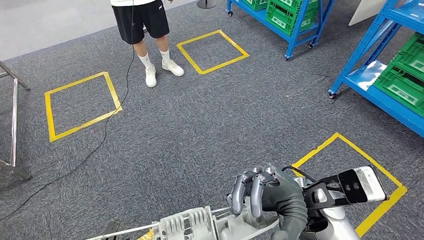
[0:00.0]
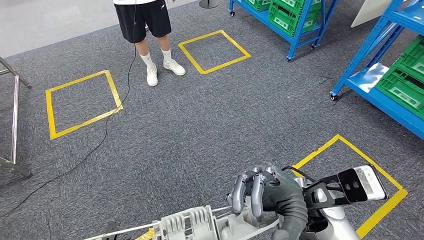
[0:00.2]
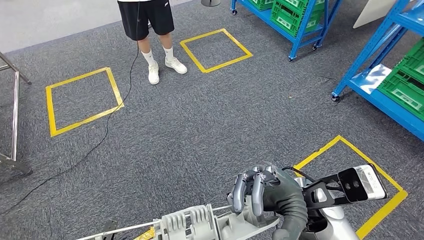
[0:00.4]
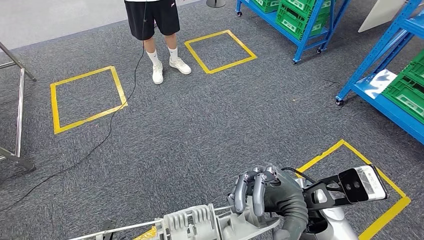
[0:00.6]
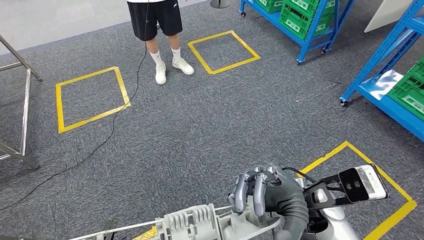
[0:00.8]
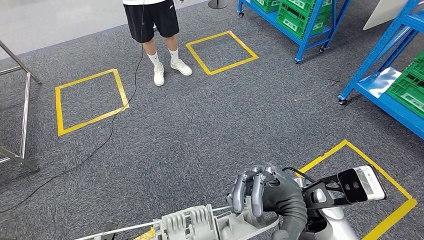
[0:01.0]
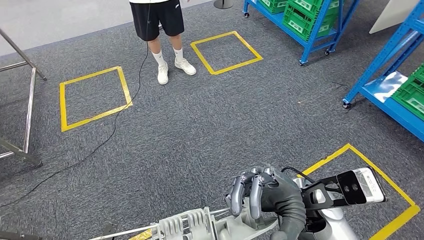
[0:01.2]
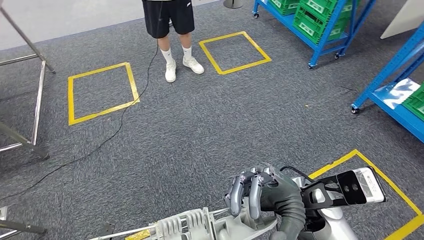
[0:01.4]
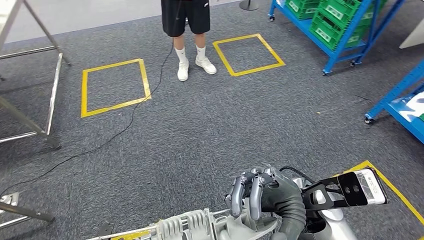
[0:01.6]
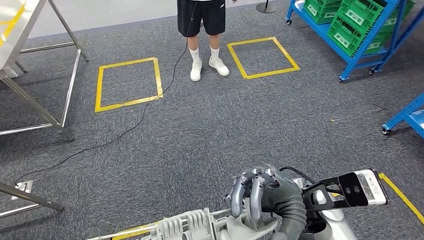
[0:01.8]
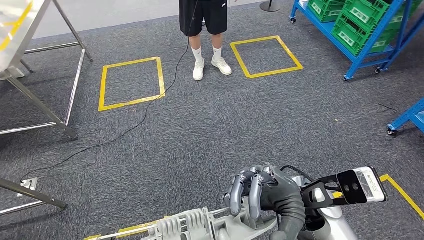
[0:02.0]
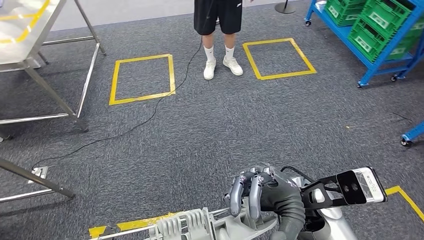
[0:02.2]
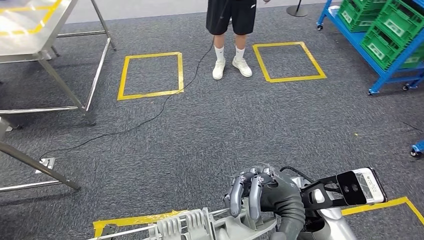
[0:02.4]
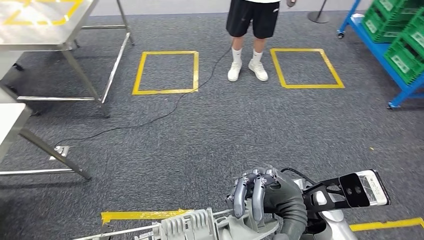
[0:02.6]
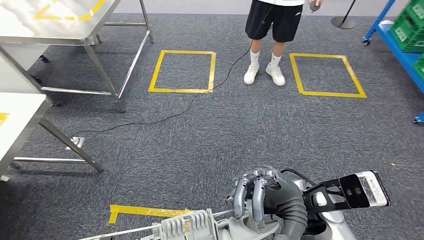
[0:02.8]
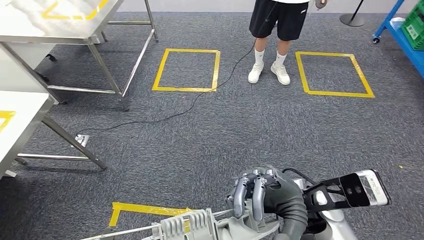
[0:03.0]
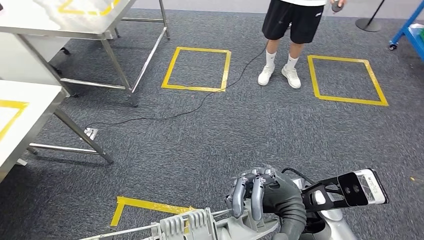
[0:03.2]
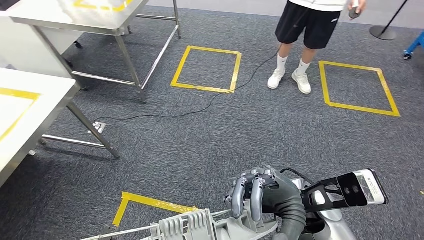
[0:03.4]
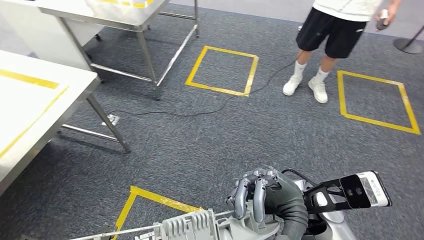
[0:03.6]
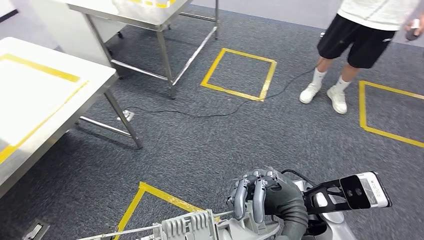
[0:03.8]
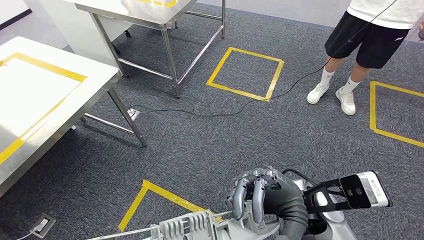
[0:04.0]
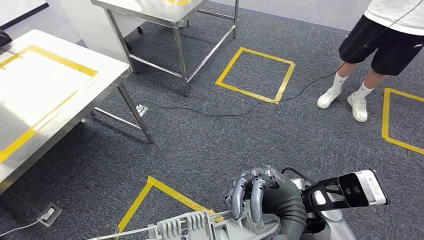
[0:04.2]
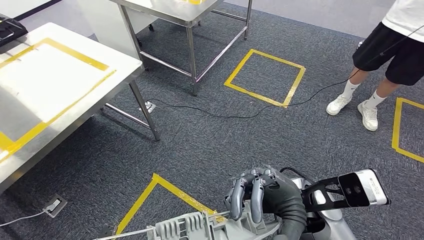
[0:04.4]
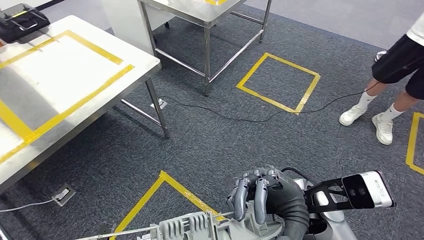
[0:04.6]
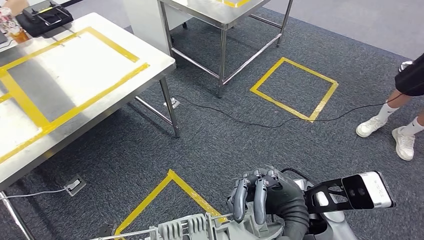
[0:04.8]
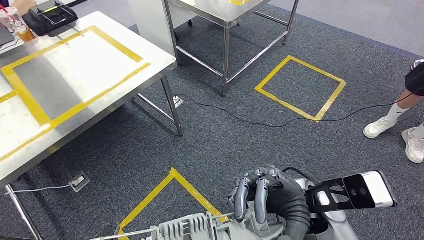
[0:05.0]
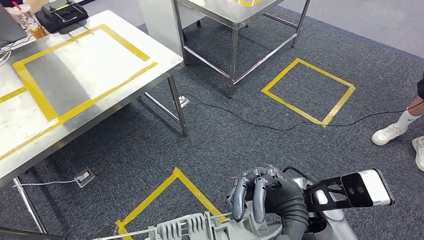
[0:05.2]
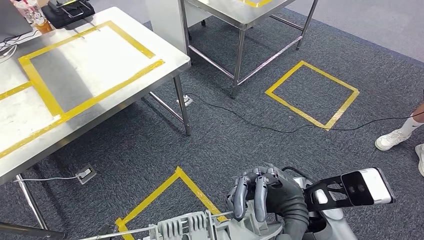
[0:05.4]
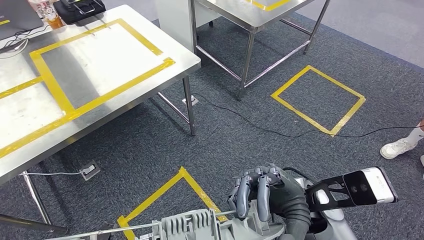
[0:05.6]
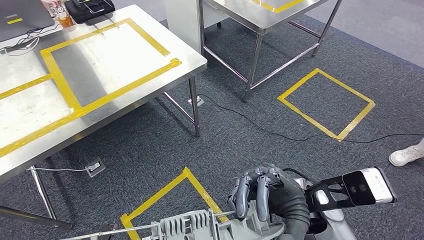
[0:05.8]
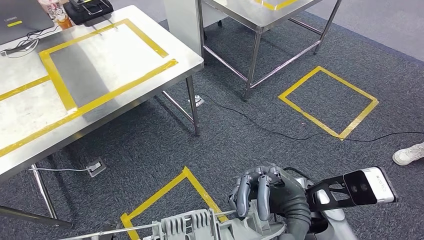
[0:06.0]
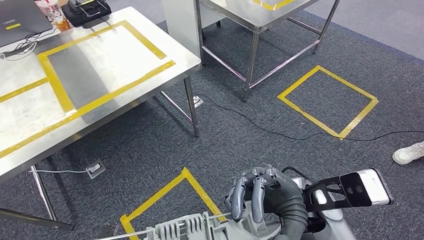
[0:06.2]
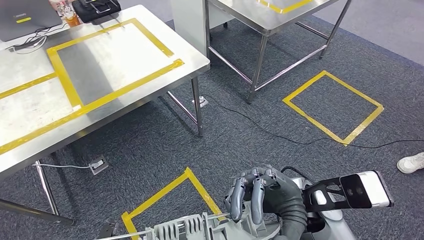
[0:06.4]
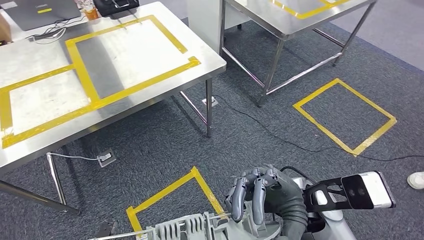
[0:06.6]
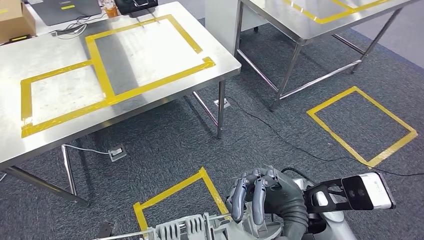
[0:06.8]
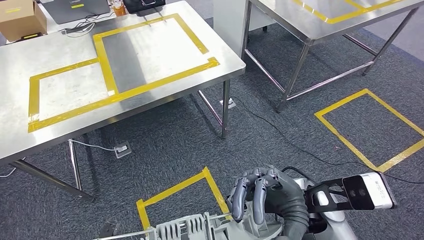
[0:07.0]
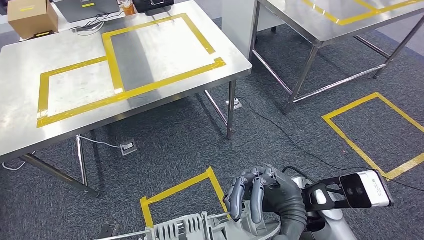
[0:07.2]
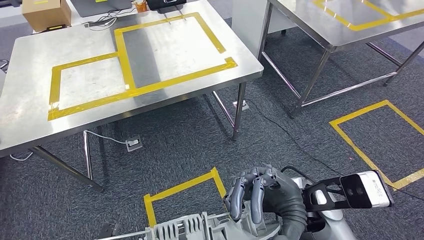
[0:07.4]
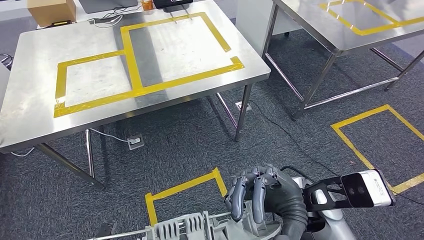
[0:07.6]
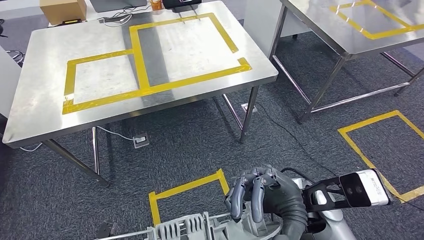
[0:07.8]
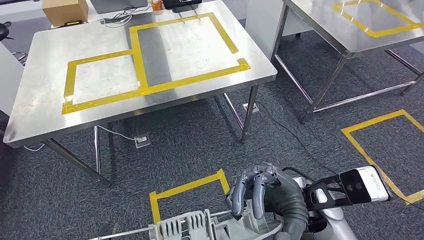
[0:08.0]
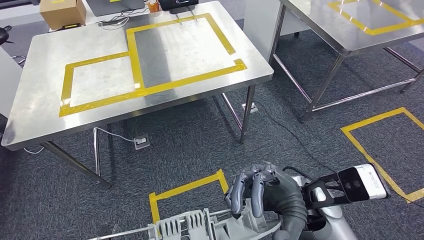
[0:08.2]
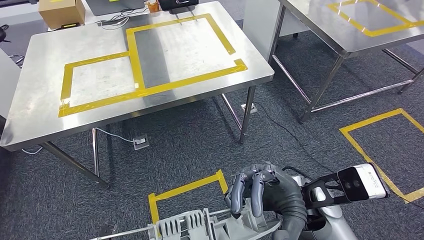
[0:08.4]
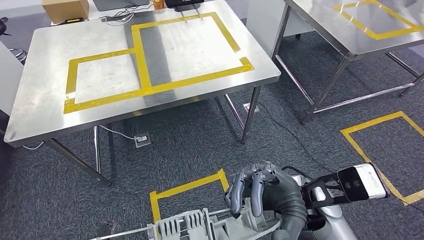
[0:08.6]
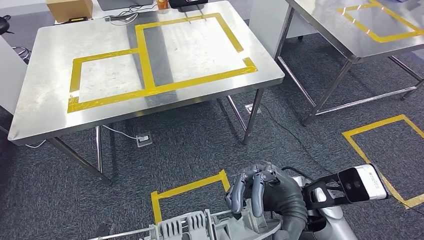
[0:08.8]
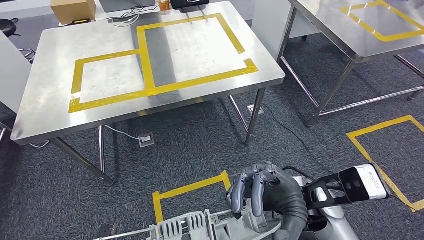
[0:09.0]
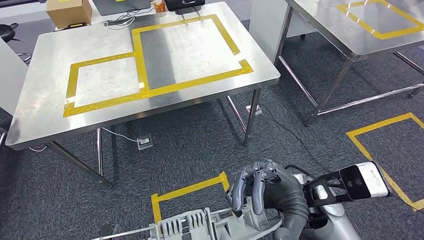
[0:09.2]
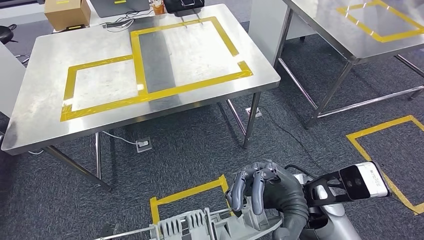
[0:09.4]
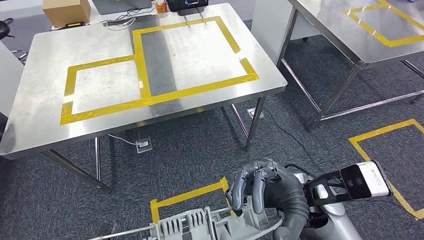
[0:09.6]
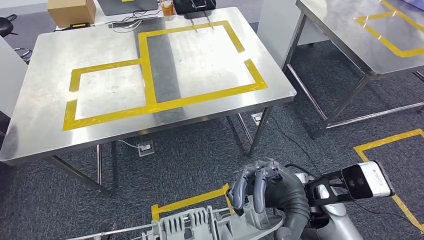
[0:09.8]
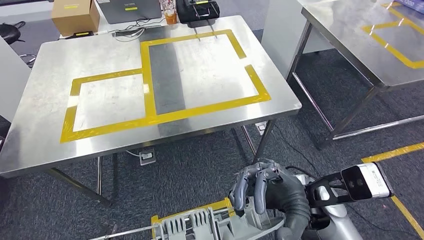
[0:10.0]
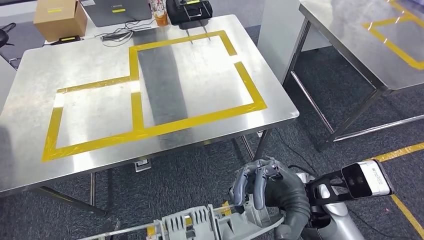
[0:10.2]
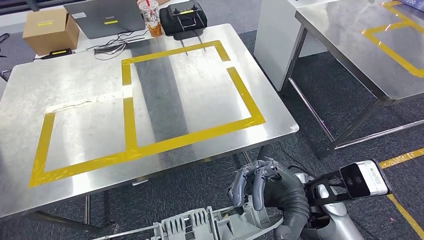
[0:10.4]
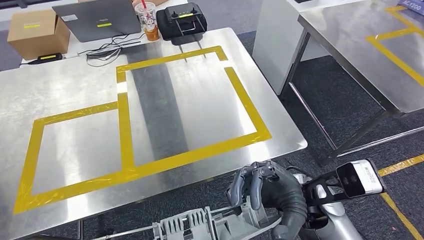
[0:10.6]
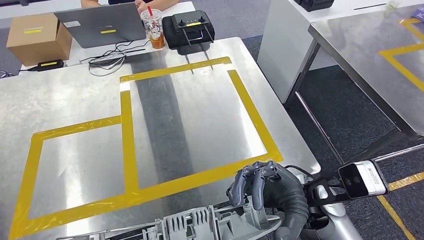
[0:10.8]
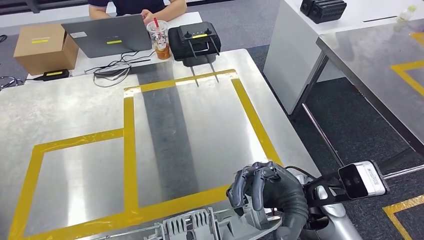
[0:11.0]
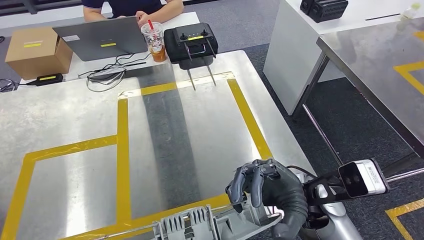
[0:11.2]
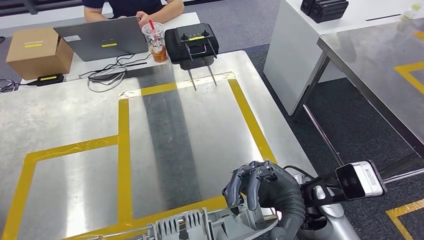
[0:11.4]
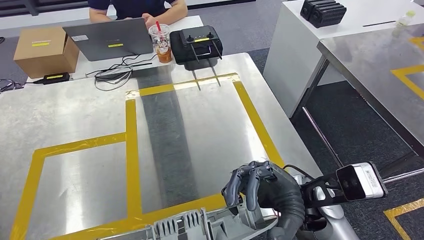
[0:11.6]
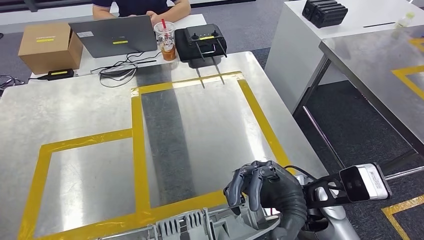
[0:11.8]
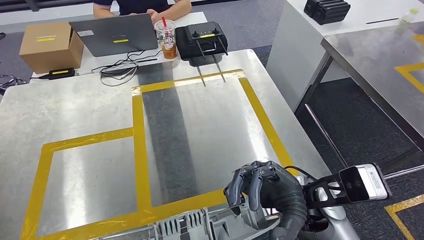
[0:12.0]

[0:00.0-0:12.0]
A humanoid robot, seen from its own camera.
Step, 0:00.0 to 0:04.2: Move the small parts to the workbench.

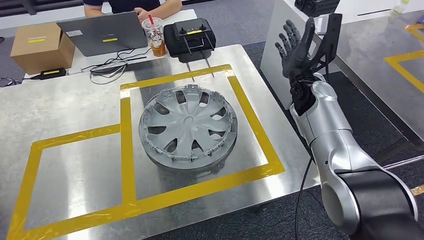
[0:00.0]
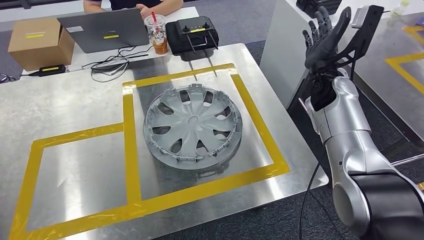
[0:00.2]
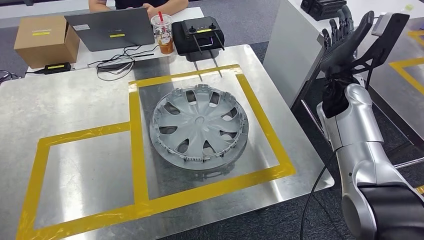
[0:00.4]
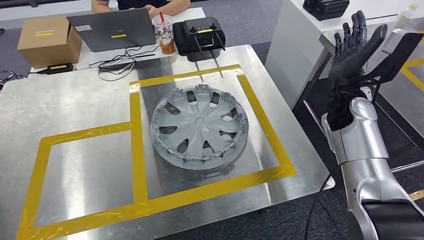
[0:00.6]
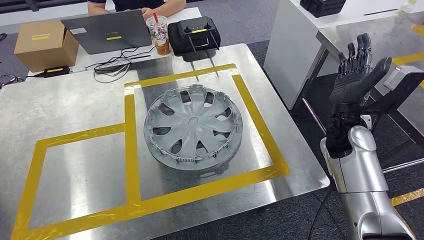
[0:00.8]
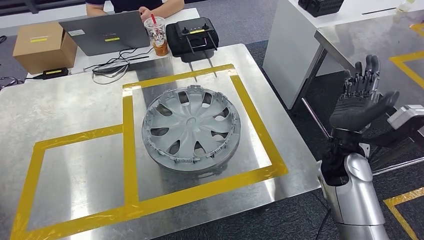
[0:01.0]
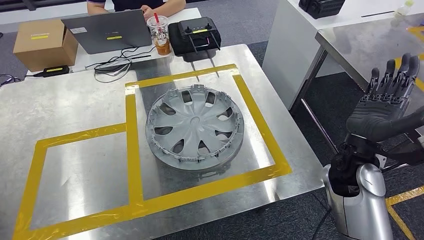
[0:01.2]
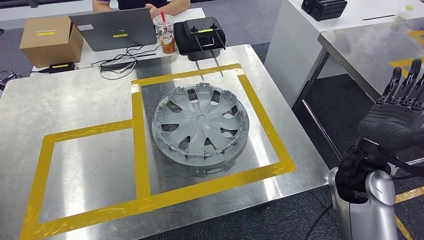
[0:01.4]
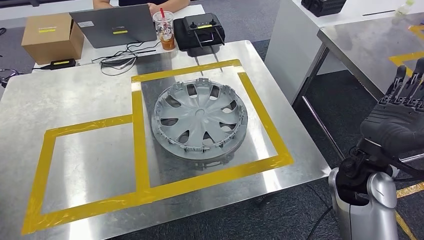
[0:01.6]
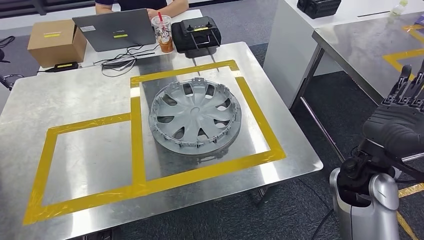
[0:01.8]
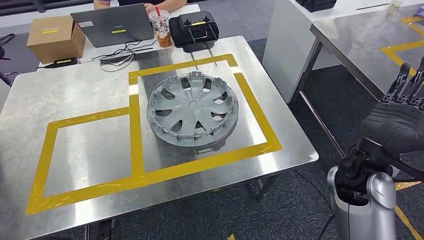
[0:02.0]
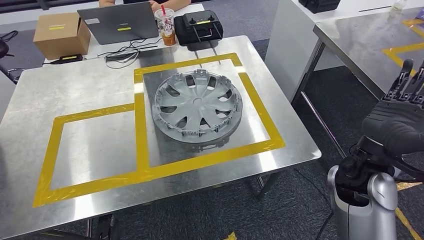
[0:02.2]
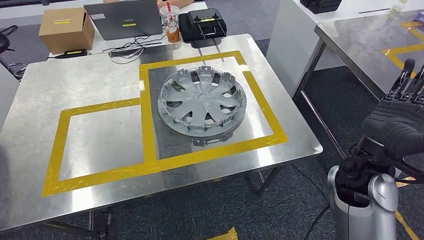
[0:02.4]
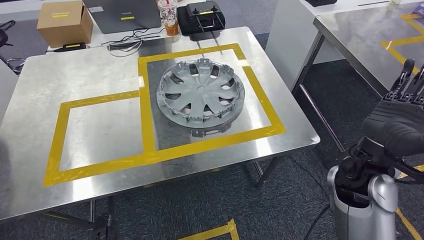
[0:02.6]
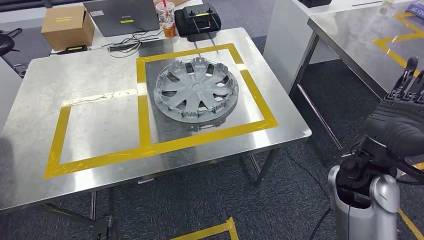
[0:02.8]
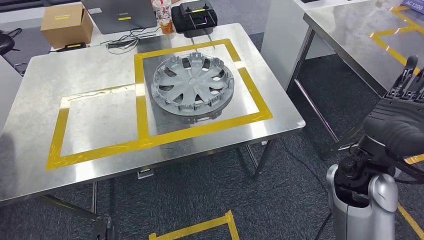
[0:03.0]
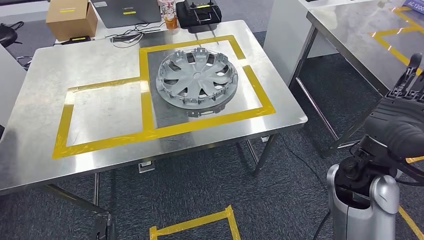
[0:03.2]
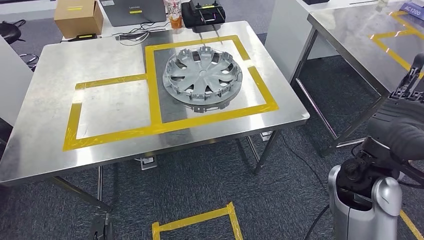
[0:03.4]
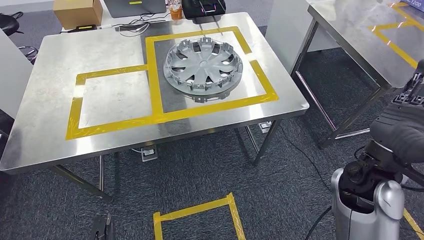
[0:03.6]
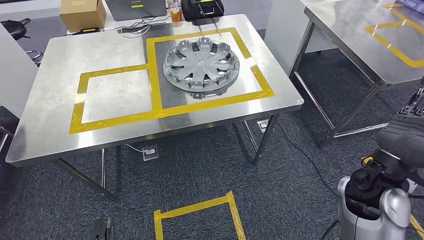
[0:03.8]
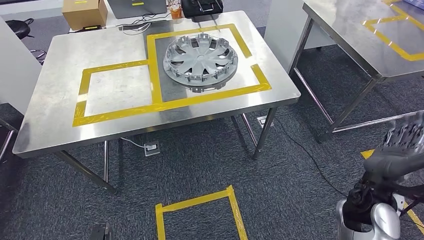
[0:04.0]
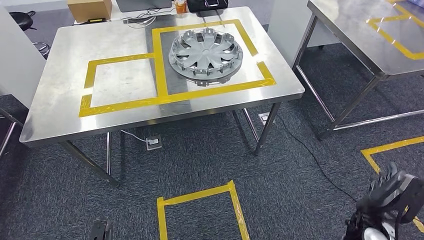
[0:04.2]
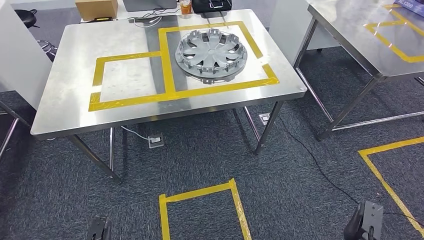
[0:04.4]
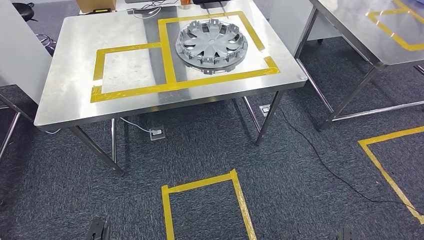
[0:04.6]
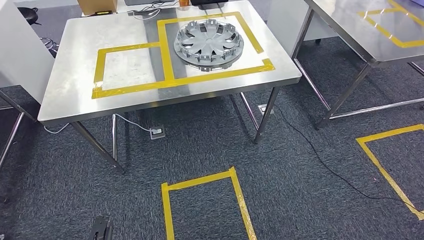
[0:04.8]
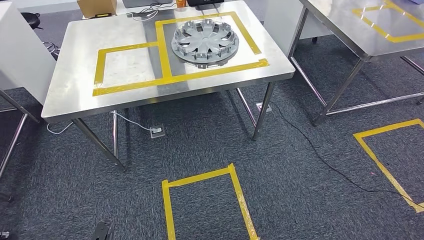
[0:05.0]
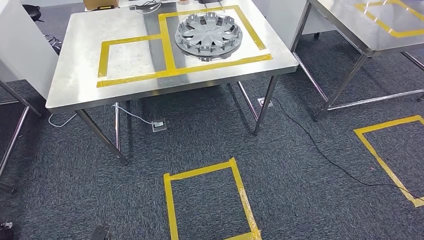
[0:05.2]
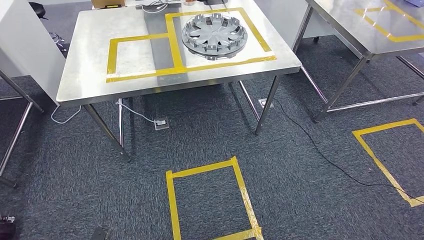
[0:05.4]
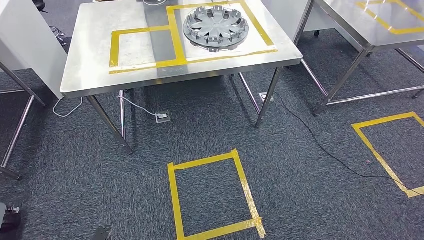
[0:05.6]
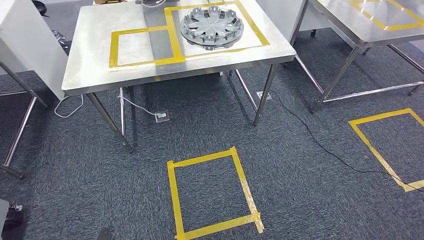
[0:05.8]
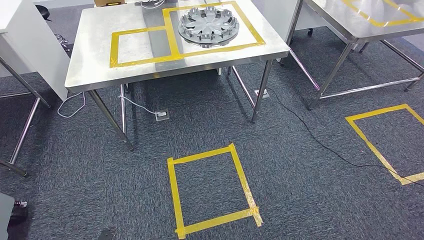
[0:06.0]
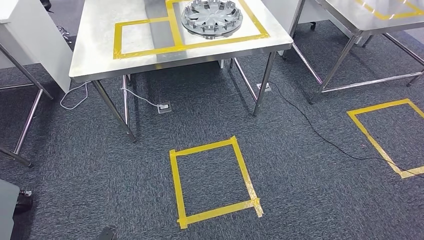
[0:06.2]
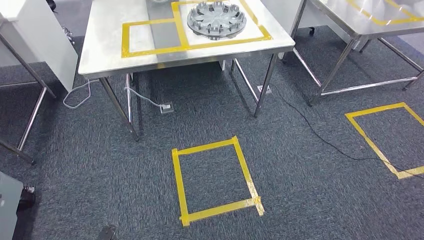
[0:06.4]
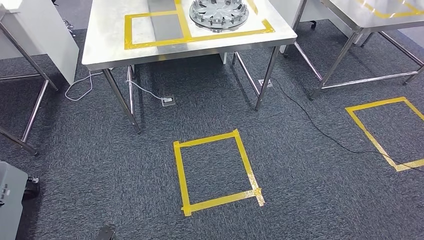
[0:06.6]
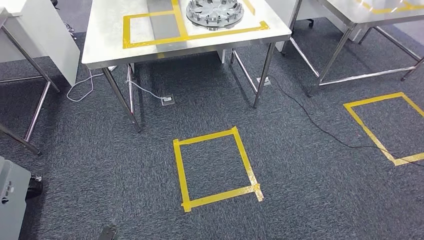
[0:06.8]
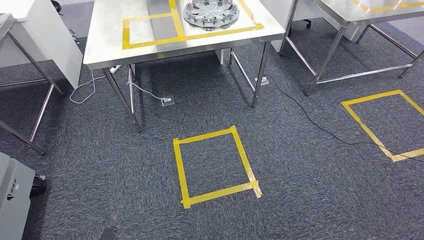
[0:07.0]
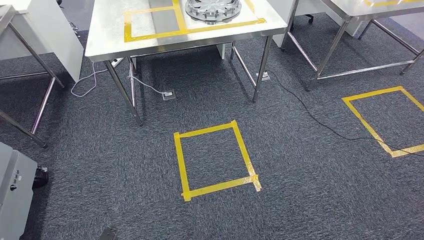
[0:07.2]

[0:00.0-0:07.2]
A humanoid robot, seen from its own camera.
Step, 0:01.2 to 0:07.2: Return to the initial position at the workbench.
